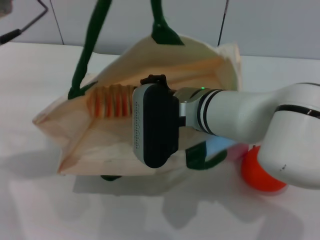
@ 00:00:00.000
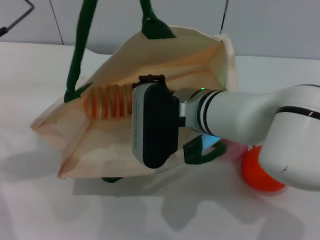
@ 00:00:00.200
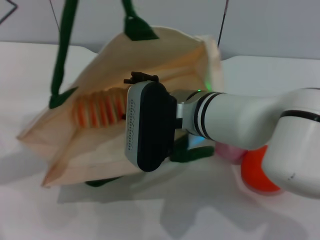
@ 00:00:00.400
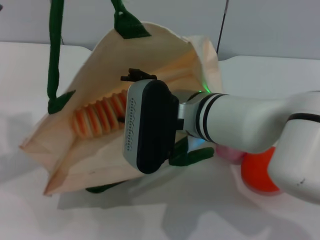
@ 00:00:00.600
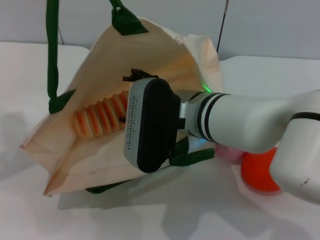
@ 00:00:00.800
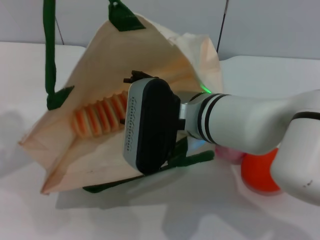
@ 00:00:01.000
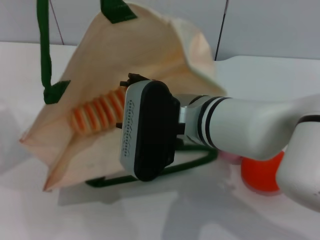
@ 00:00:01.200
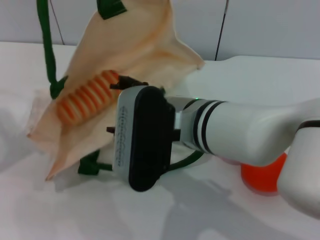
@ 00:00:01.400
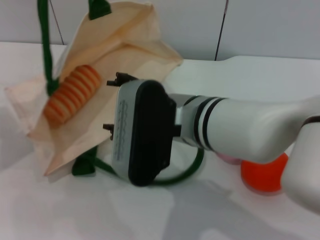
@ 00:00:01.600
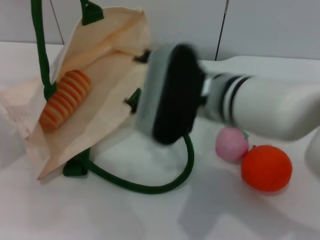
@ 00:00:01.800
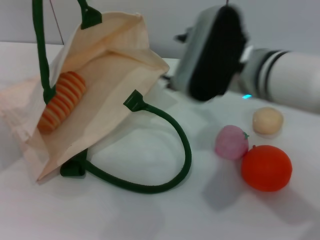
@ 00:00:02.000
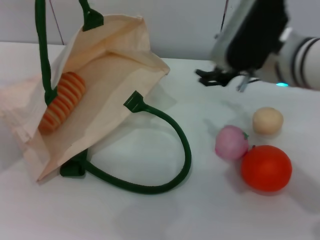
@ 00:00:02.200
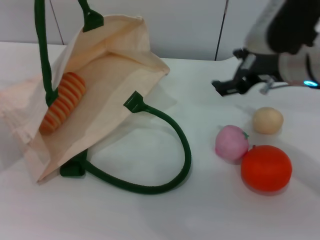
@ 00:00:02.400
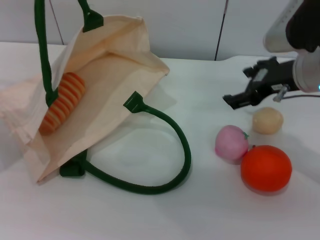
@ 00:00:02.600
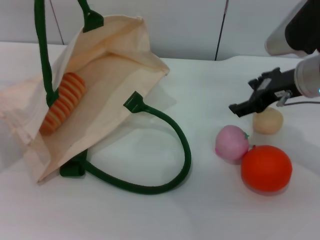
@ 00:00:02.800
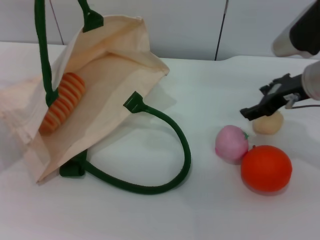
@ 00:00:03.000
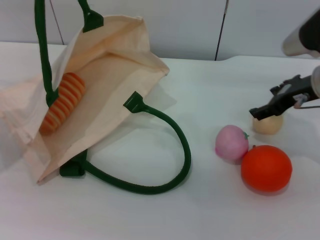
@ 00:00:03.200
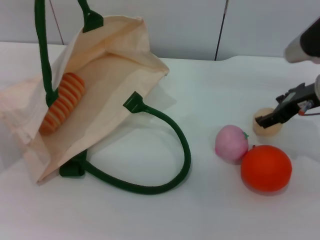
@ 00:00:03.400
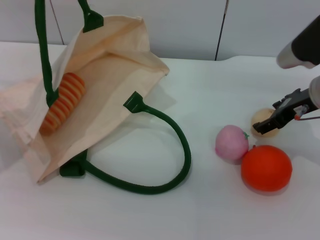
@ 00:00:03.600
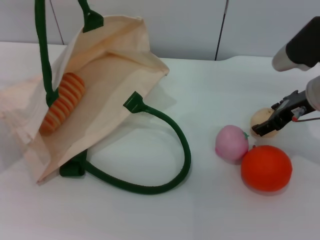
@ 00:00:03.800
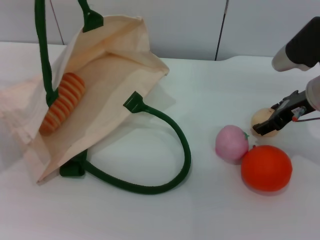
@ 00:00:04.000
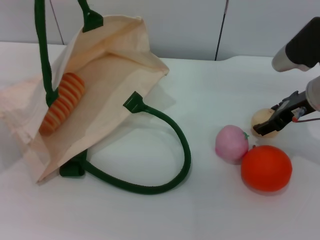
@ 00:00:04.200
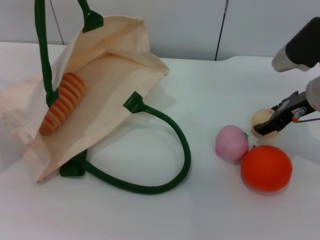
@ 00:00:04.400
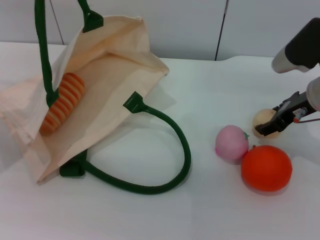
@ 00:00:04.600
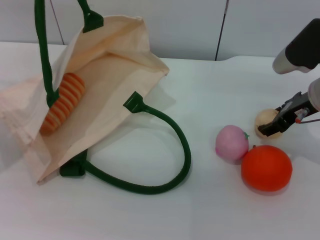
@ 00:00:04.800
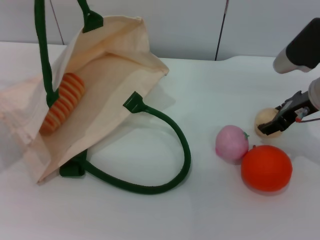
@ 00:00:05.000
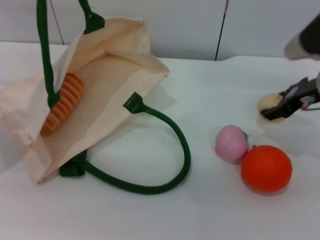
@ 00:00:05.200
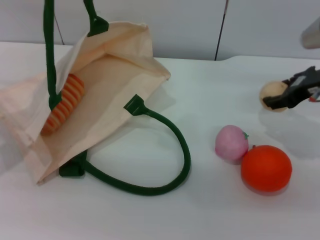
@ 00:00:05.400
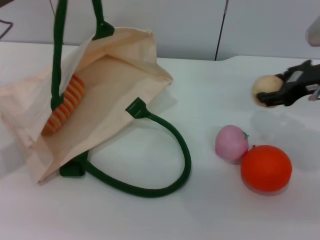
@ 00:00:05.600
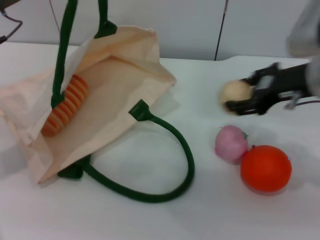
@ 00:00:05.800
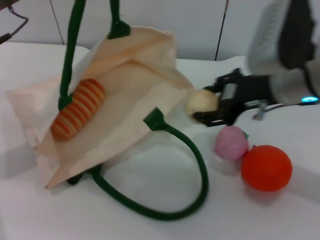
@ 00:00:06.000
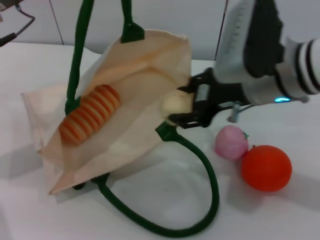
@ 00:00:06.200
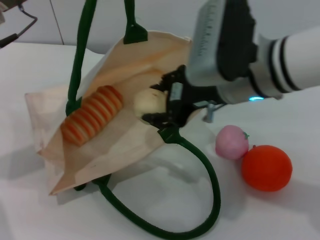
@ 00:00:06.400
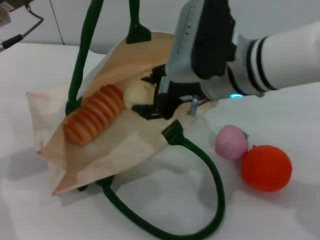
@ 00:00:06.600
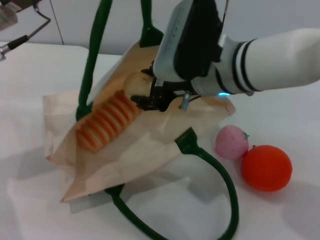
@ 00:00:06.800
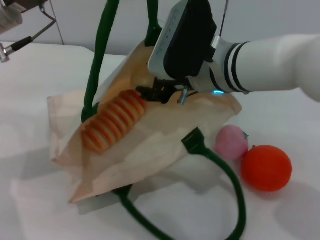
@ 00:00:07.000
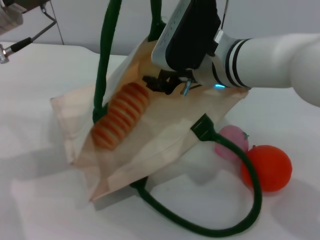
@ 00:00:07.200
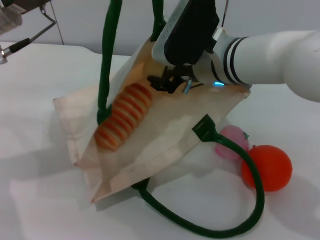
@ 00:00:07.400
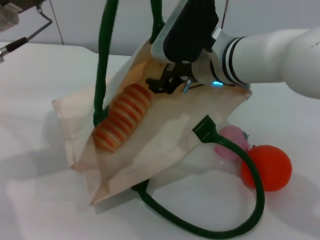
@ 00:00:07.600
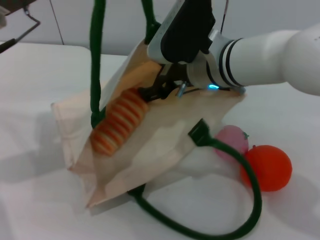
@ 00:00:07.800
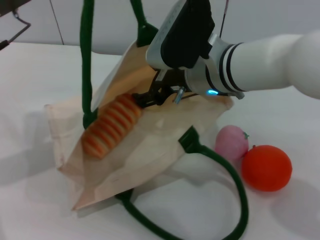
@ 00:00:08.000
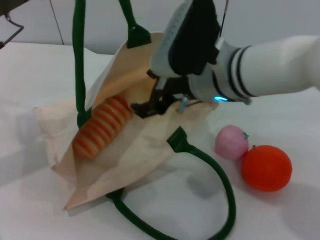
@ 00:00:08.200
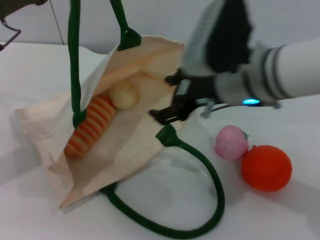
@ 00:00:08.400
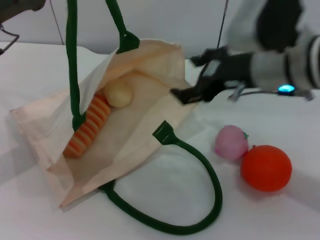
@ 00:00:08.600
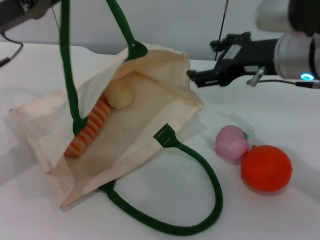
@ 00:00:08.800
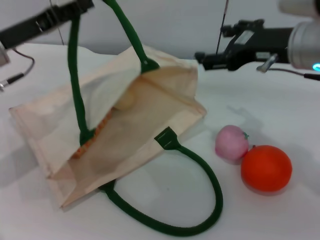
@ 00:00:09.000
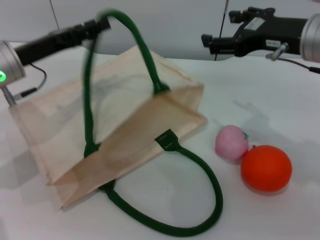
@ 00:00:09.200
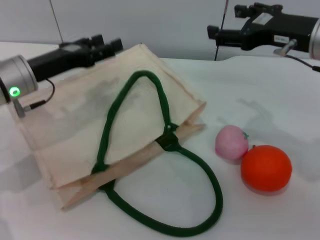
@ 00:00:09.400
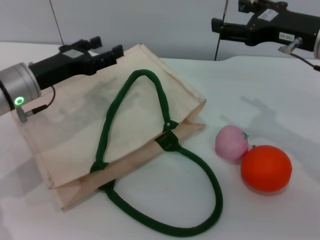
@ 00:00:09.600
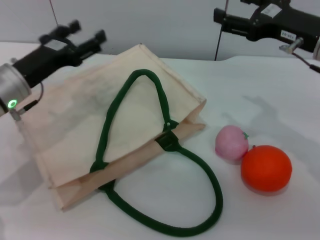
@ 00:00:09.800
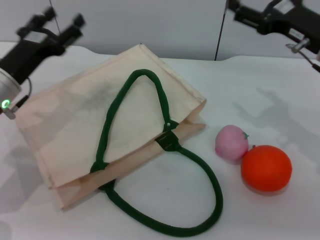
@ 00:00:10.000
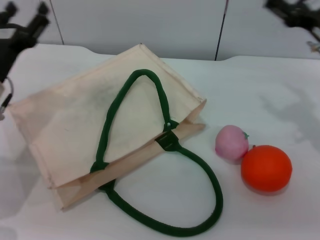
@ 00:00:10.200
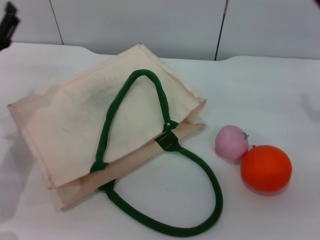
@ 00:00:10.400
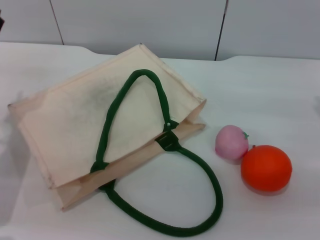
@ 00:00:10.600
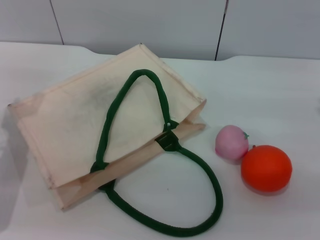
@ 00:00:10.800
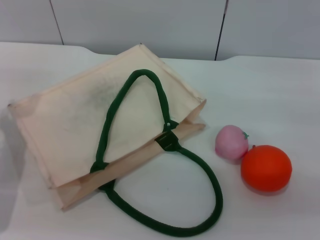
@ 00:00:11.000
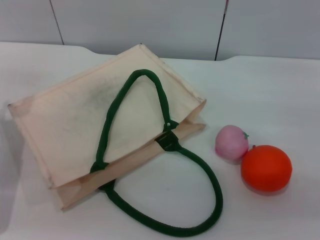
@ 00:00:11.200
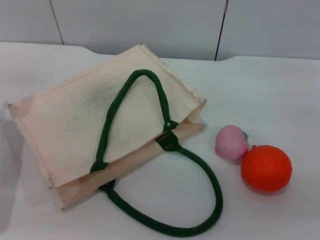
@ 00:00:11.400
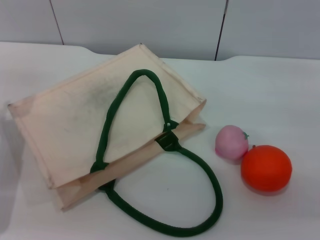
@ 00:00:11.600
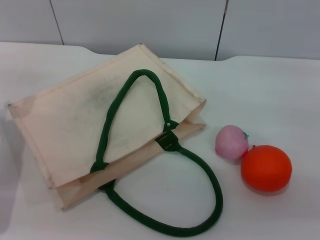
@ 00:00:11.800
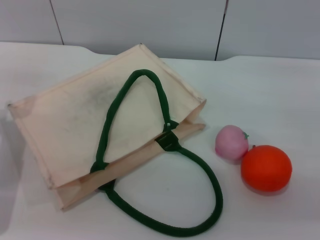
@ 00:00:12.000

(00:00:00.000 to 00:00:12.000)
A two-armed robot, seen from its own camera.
Task of the whole recording: pick up the bread and egg yolk pastry from the table and place it in the white handbag.
Step, 00:00:00.000 - 00:00:02.000: Place the bread into the woven bag with the right gripper.
Step, 00:00:02.200 - 00:00:05.800: Pick up the egg yolk pastry with the right gripper.
Step, 00:00:06.000 - 00:00:08.800: Place the egg yolk pastry into the woven bag with the right gripper.
Step, 00:00:09.000 - 00:00:10.200: Lower the woven bag with the left gripper to close it.
00:00:00.000 - 00:00:01.600: The left gripper goes about 10 cm to the left. The right gripper ends up some 5 cm from where it was, and opens.
00:00:01.600 - 00:00:03.000: The right gripper heads to the right and forward, covering approximately 25 cm.
00:00:03.000 - 00:00:04.400: There are only small adjustments of the grippers.
00:00:04.400 - 00:00:06.000: The left gripper moves some 5 cm. Meanwhile the right gripper moves to the left, upward and backward, about 10 cm.
00:00:06.000 - 00:00:07.600: The right gripper travels to the left by about 10 cm.
00:00:07.600 - 00:00:09.000: The left gripper moves downward, some 5 cm; the right gripper is displaced to the right and upward by some 10 cm, and opens up.
00:00:09.000 - 00:00:10.400: The left gripper is displaced downward by roughly 5 cm, and opens its fingers. Meanwhile the right gripper shifts approximately 15 cm to the right and downward.
00:00:10.400 - 00:00:12.000: There are only small adjustments of the grippers.
